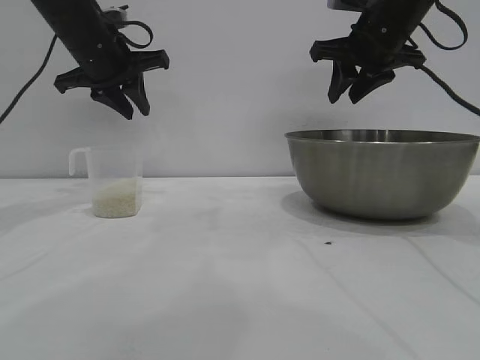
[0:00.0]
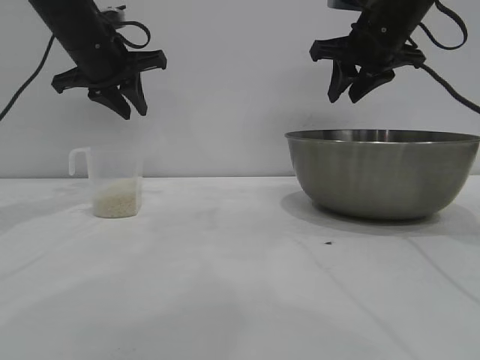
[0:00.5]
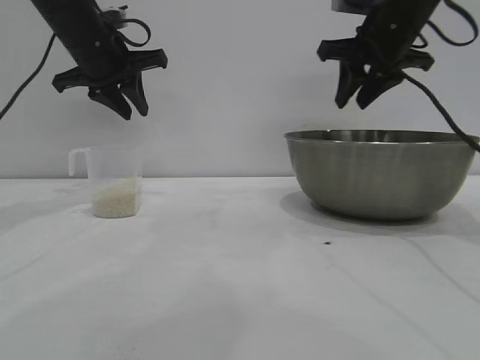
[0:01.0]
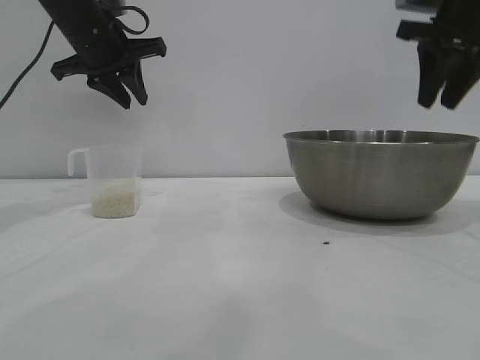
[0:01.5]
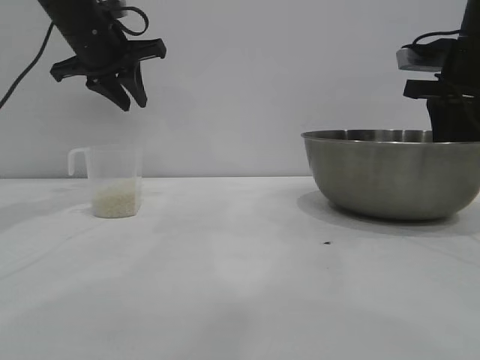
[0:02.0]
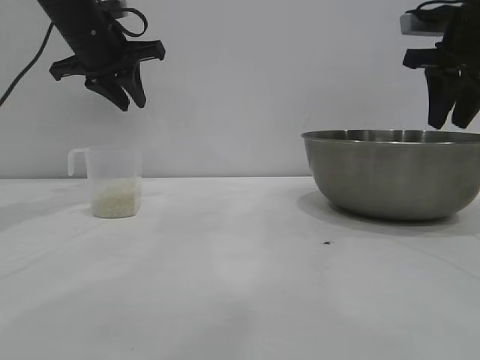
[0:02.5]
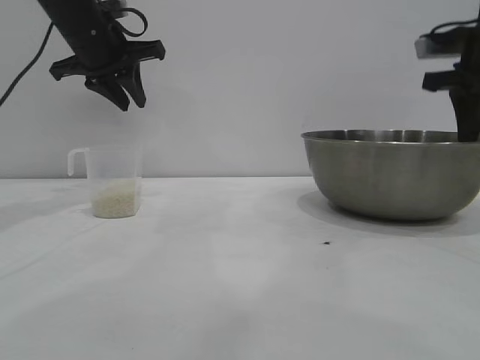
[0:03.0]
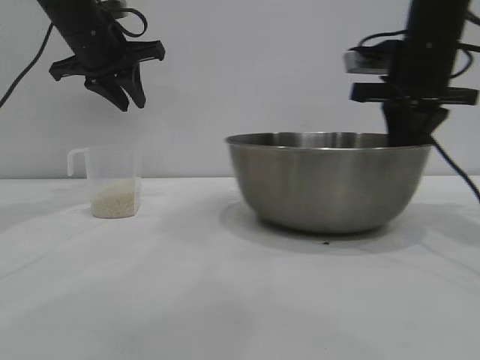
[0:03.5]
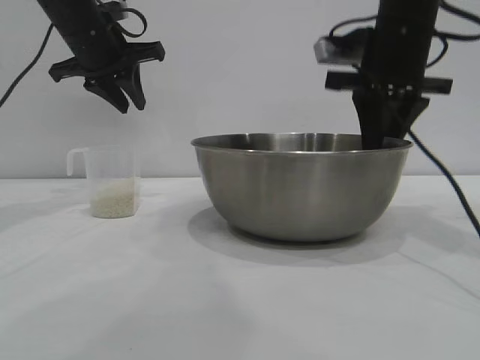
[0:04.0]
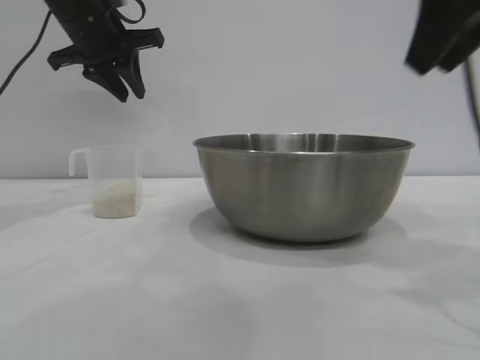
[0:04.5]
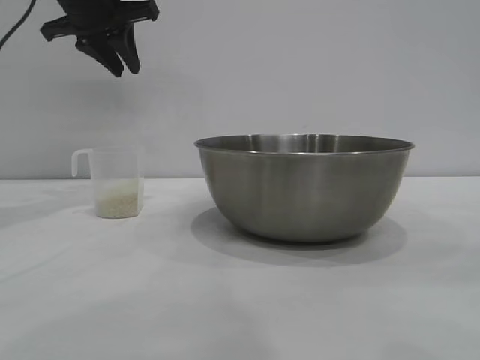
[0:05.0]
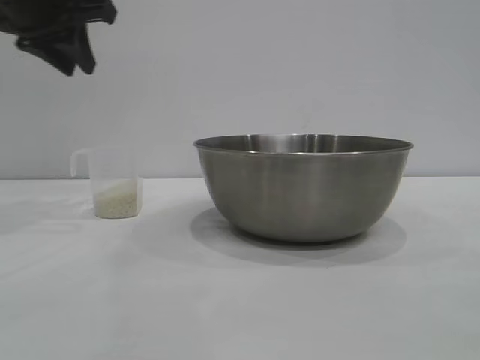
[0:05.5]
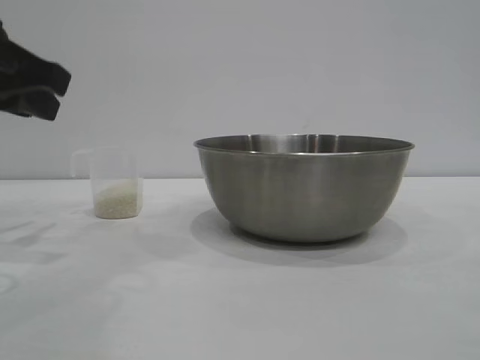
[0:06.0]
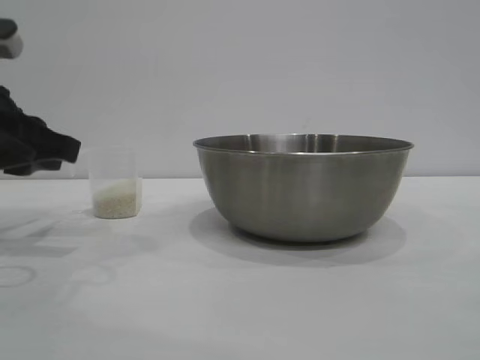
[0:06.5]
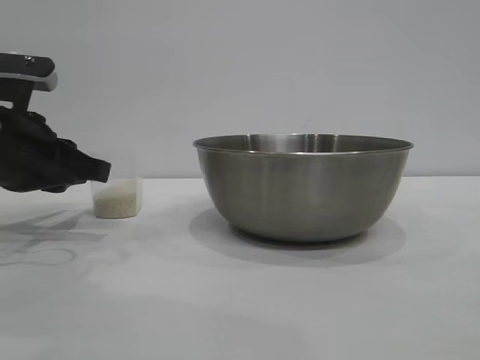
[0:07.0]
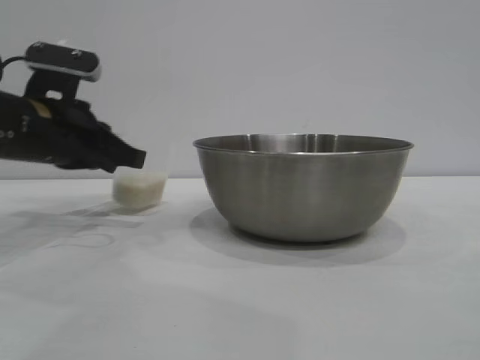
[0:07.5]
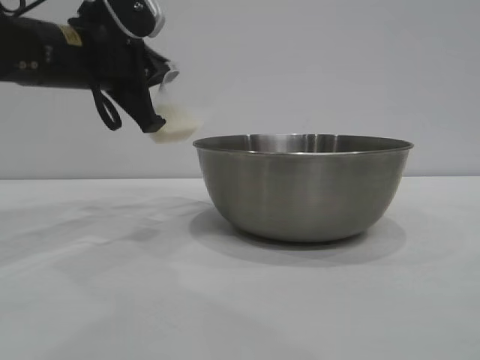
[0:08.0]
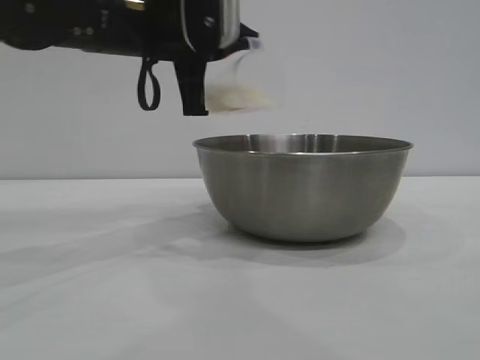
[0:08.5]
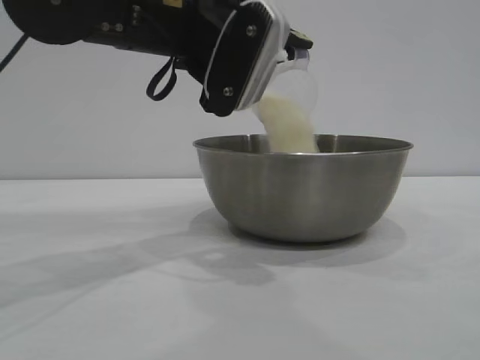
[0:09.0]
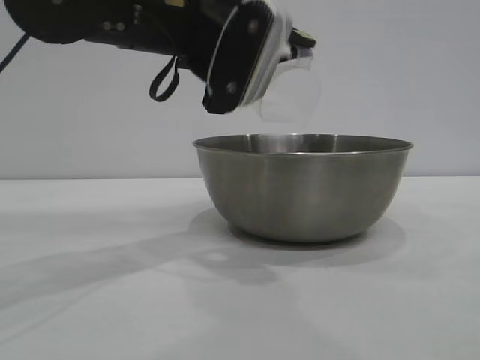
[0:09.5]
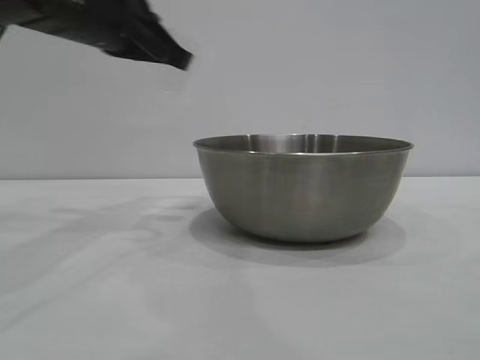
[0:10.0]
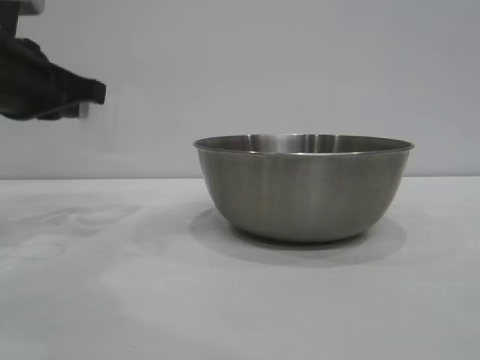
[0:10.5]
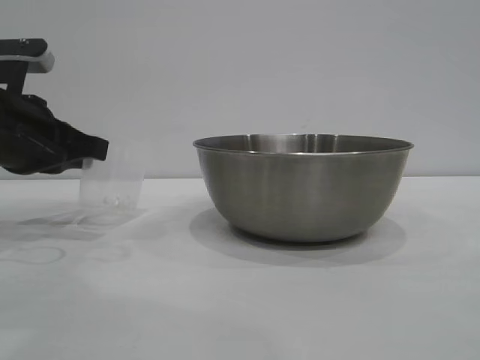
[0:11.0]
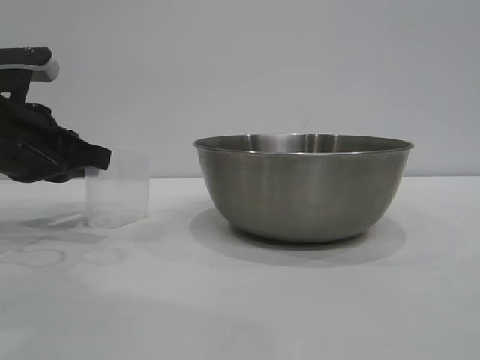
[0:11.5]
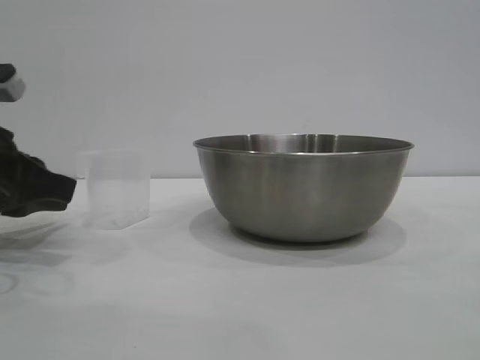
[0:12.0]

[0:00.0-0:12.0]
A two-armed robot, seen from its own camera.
Task of the whole recording: the right gripper grasp the rice container and place it in the center of the table, the left gripper grasp the rice scoop and pour the rice into the rice container.
Step, 0:00.0 to 0:04.0: Move the bowl to the center of view with the right gripper.
Step, 0:04.5 to 0:07.5: Pick up the cup with rice in it with the left gripper.
Step, 0:08.0 to 0:09.5: Pour the rice from the cup into the bowl with the left gripper.
Step, 0:10.0 to 0:12.0: Place the cup on the table with the left gripper.

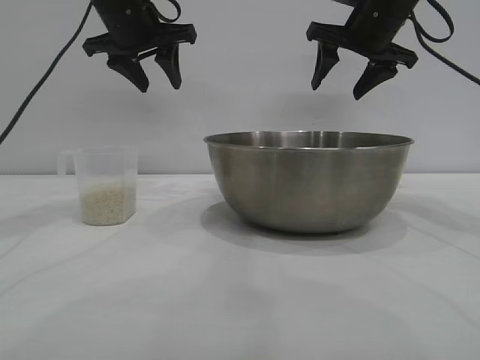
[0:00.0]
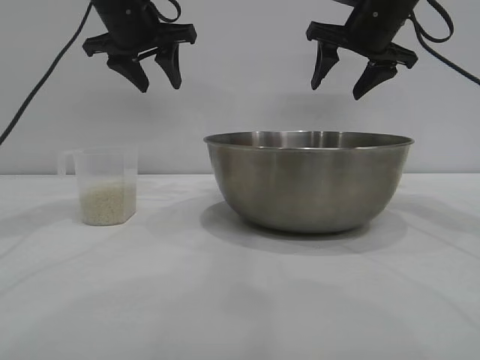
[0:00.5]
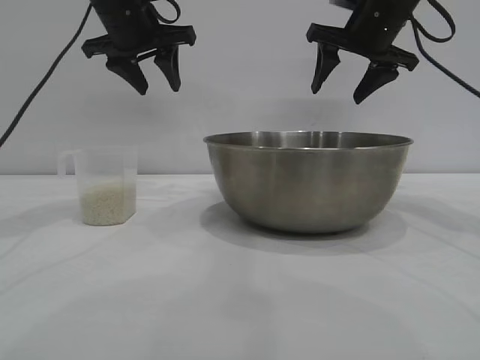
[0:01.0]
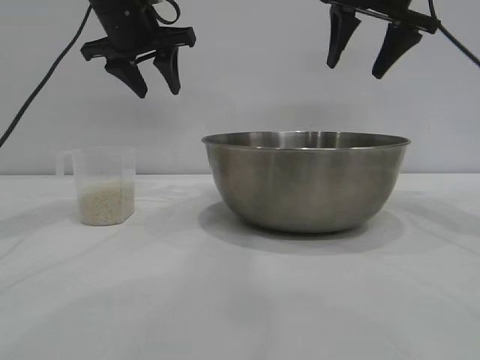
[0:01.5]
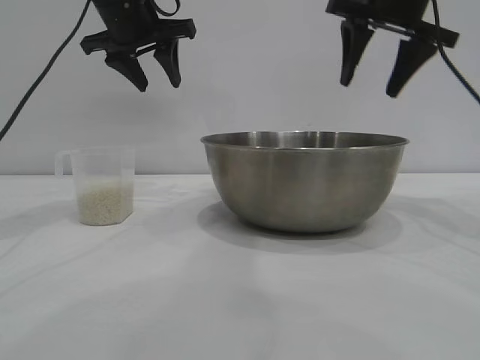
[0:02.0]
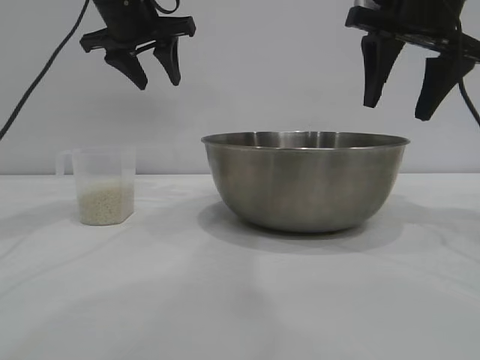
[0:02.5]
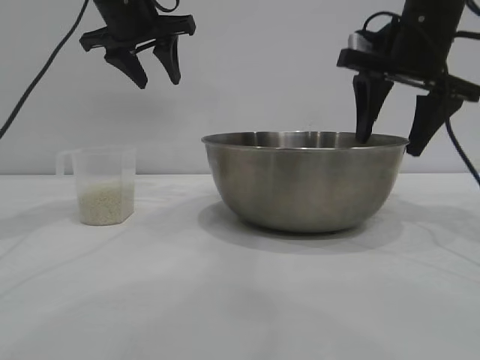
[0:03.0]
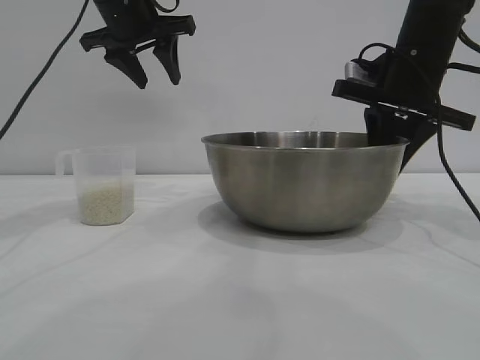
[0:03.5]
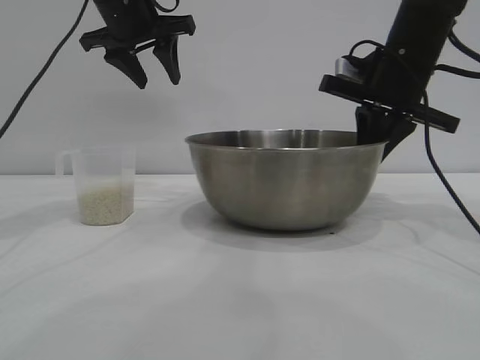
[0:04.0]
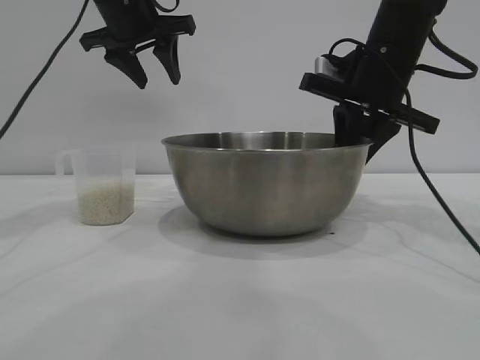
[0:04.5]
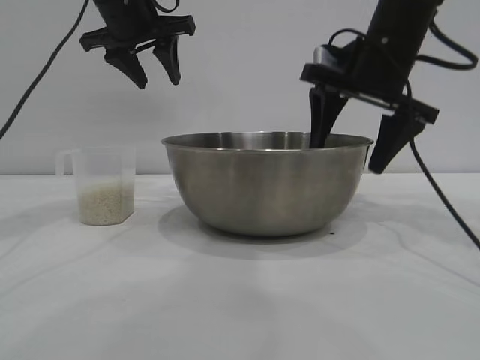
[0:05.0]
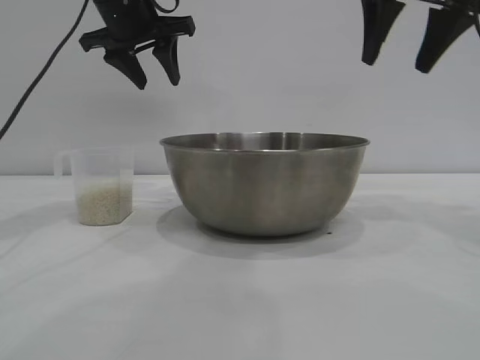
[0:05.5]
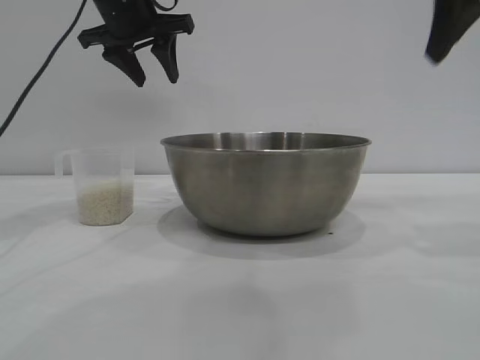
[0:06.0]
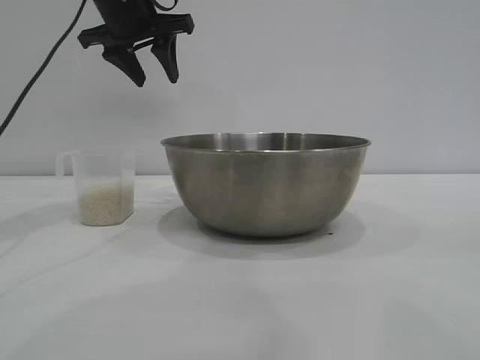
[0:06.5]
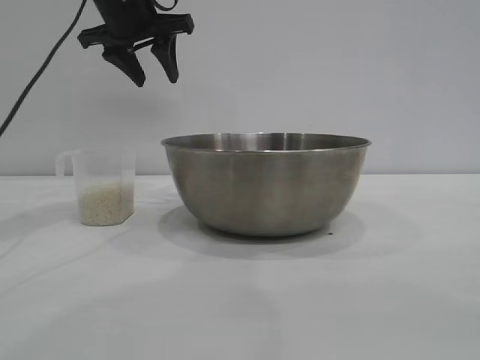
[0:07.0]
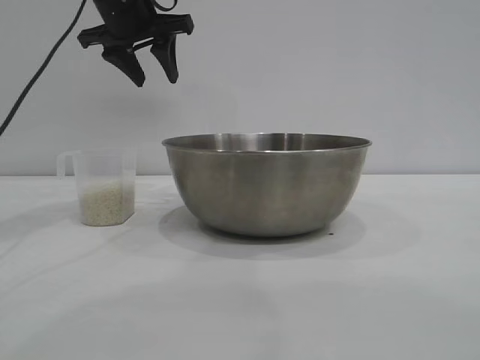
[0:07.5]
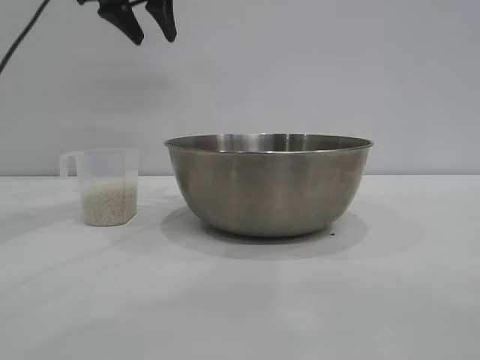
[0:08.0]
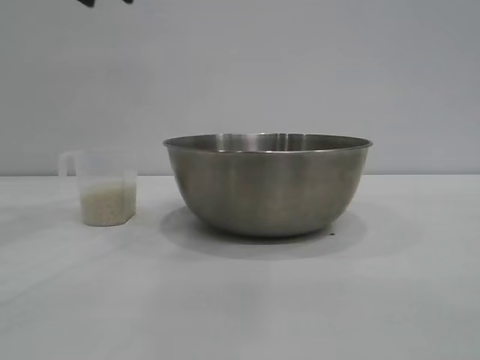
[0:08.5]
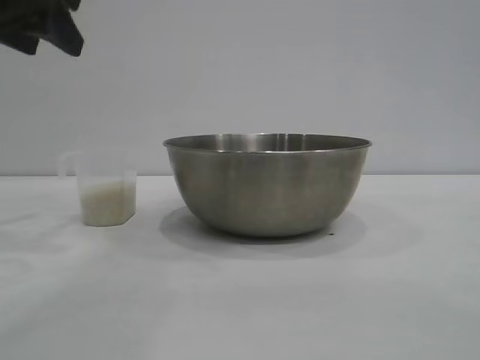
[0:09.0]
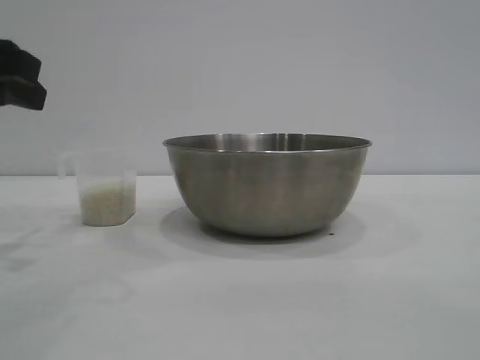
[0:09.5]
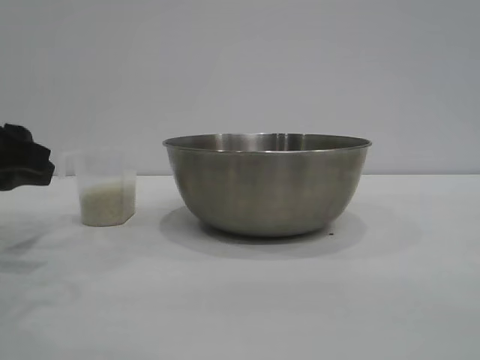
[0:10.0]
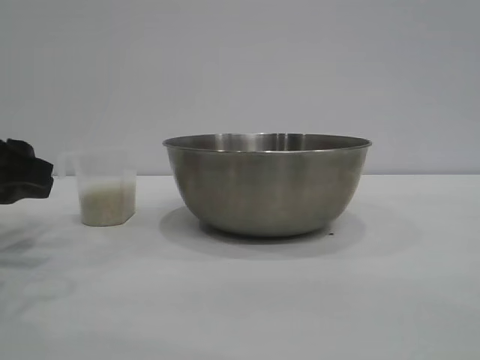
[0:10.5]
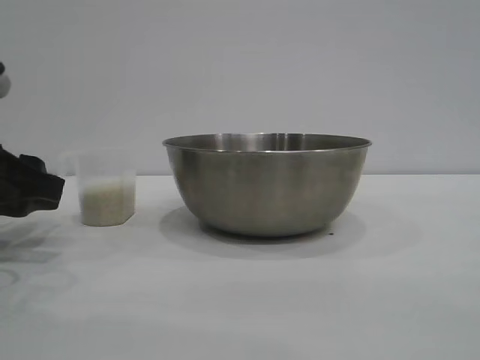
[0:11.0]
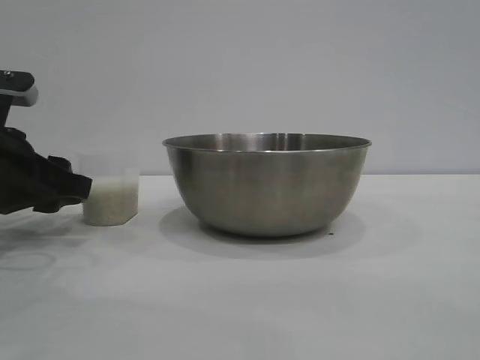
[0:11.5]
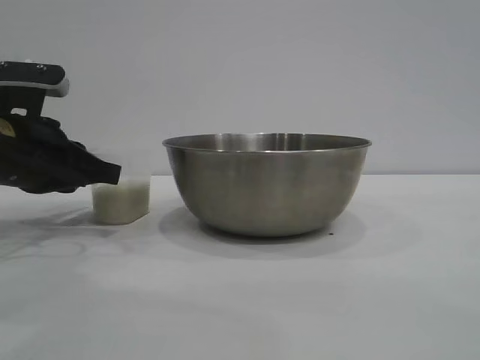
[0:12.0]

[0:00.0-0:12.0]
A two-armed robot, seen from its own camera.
Task of the whole recording: the right gripper grasp the rice container and place it in the center of the table, the left gripper grasp the rice scoop and pour the rice into the rice container.
Step, 0:00.0 to 0:05.0: Move the bowl to the center of view with the right gripper.

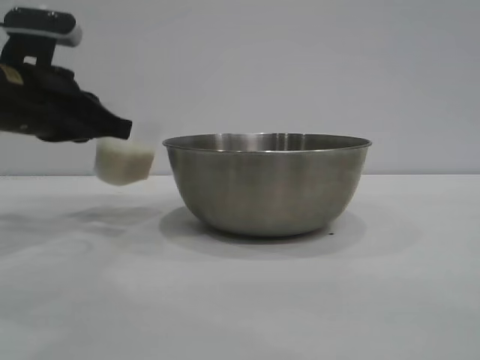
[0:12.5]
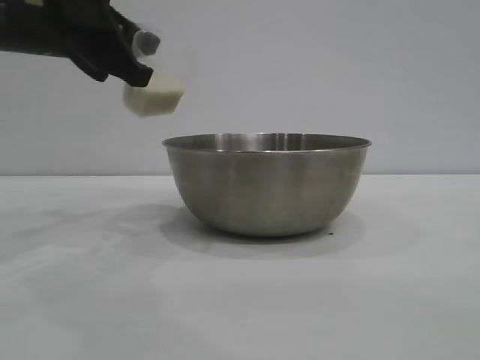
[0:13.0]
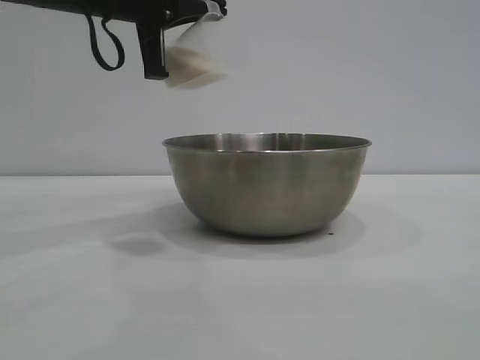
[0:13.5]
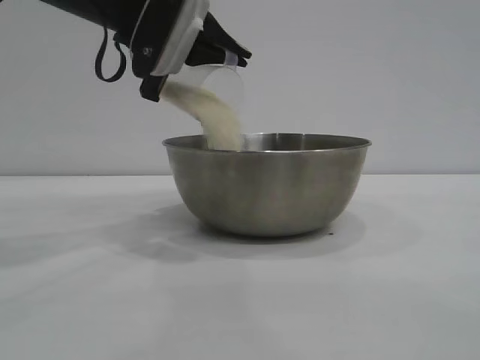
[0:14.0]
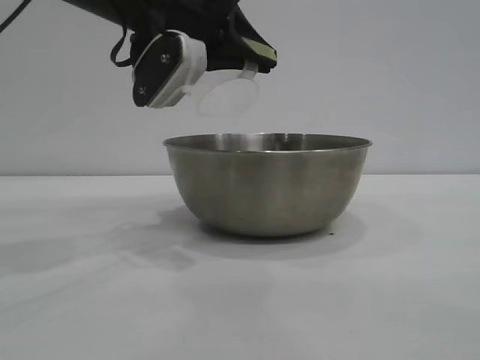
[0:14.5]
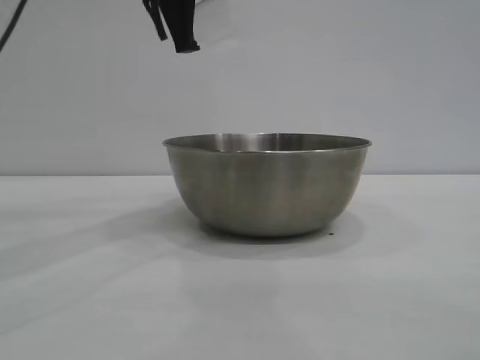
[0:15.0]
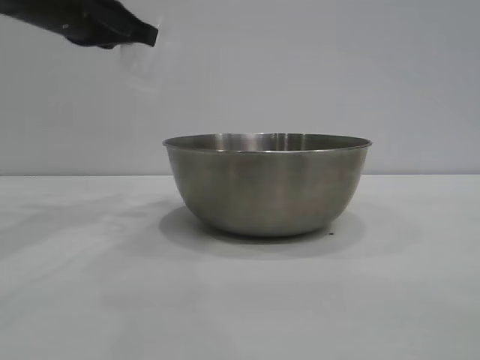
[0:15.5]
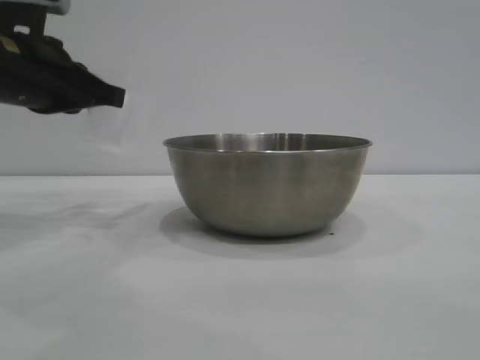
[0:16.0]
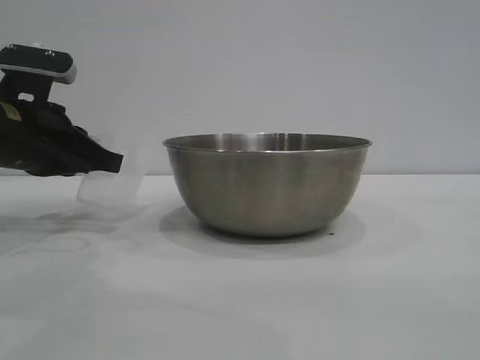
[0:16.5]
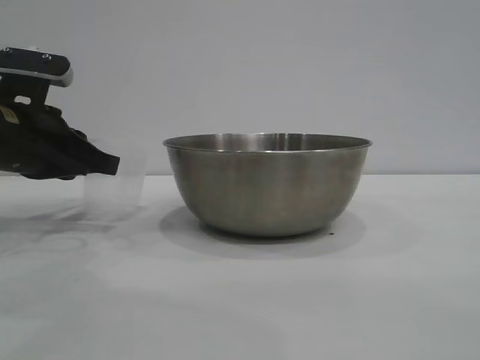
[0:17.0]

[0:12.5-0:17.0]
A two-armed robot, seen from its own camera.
Task of the whole recording: the right gripper grasp the rice container and place it in the center of the table, the left gripper grasp the rice scoop and pour the rice into the rice container.
Step, 0:13.0 to 0:14.5: Pour the rice from the cup into the bowl with the left gripper.
